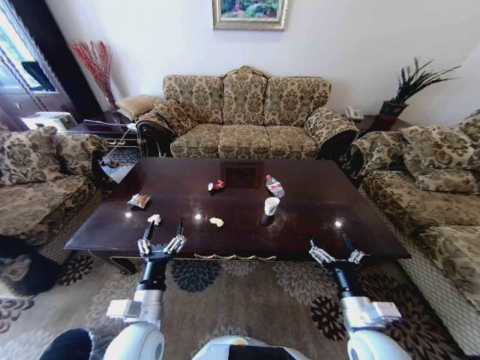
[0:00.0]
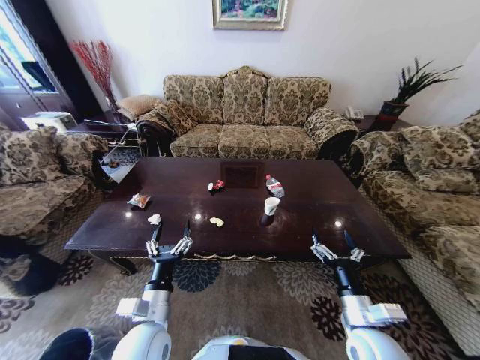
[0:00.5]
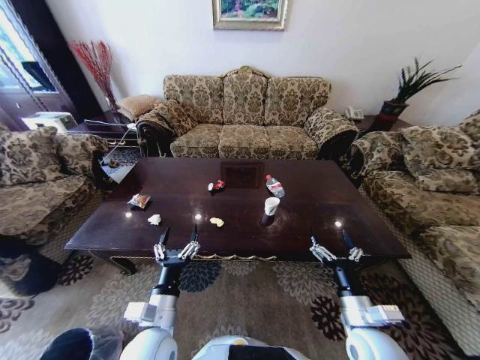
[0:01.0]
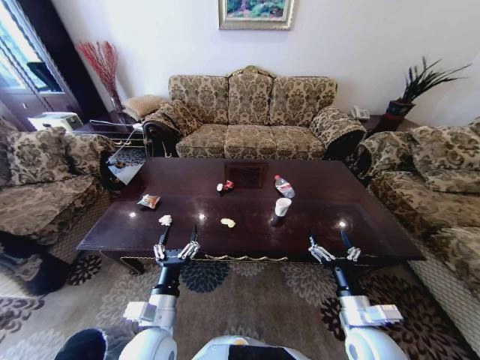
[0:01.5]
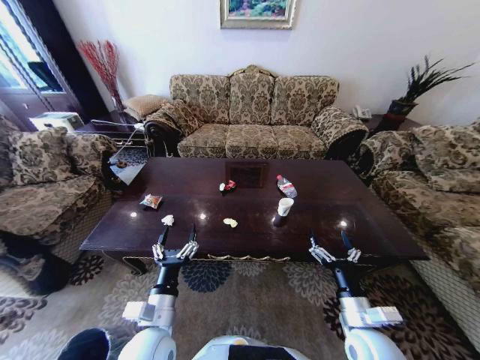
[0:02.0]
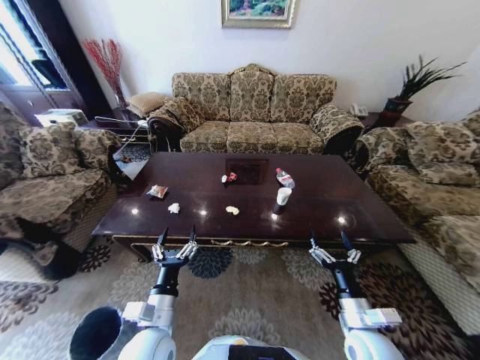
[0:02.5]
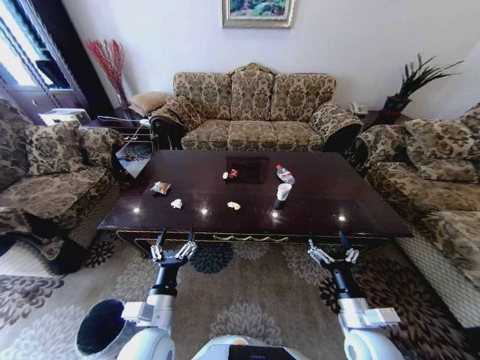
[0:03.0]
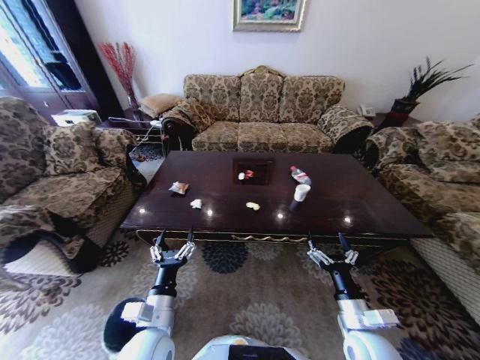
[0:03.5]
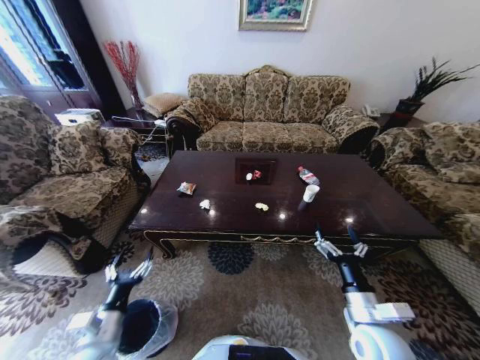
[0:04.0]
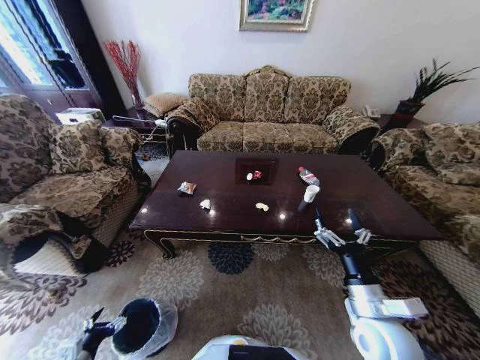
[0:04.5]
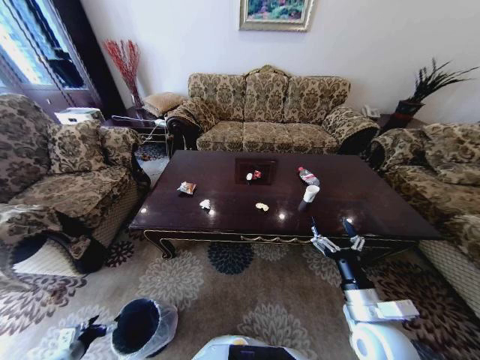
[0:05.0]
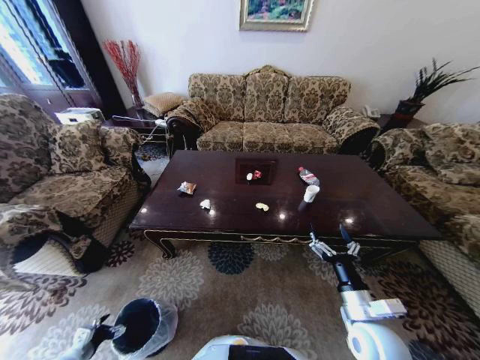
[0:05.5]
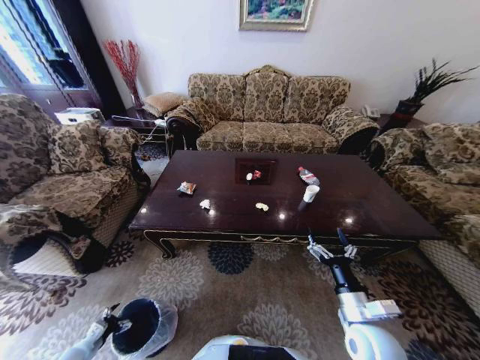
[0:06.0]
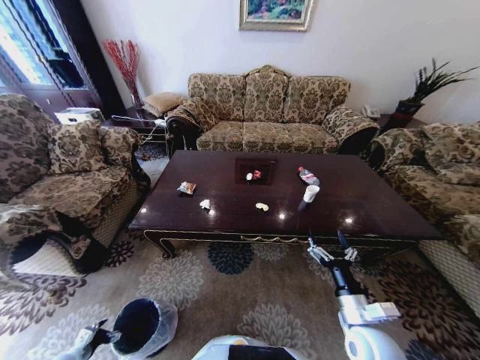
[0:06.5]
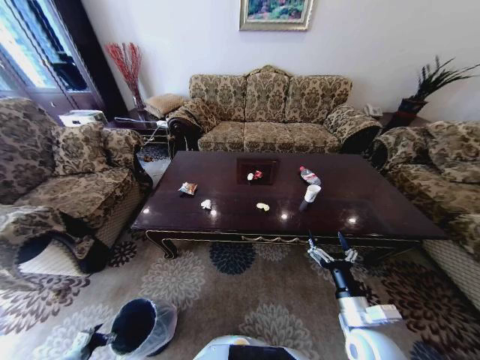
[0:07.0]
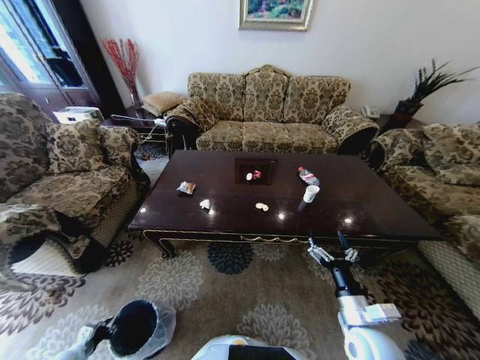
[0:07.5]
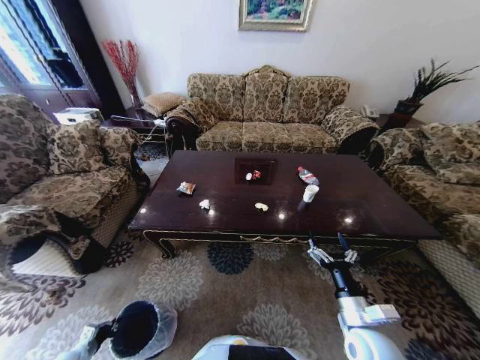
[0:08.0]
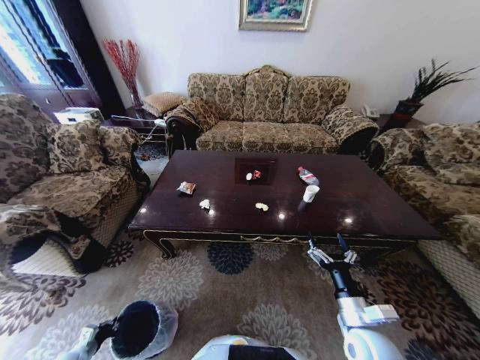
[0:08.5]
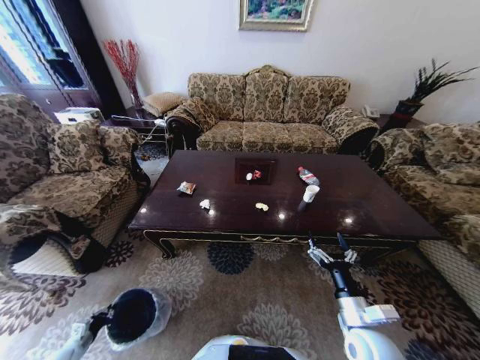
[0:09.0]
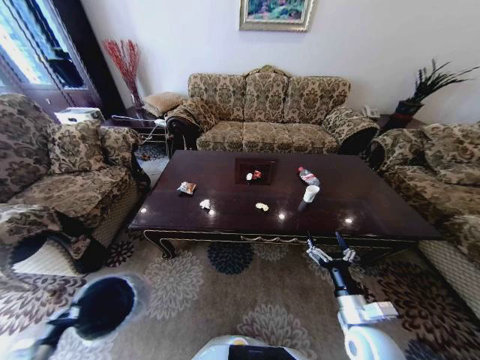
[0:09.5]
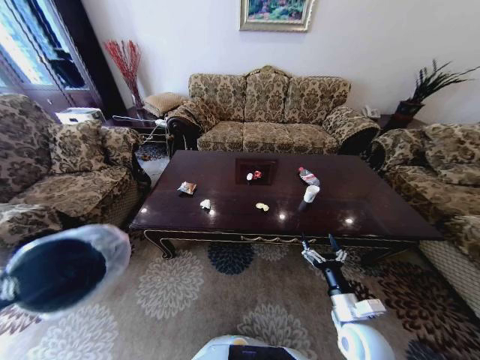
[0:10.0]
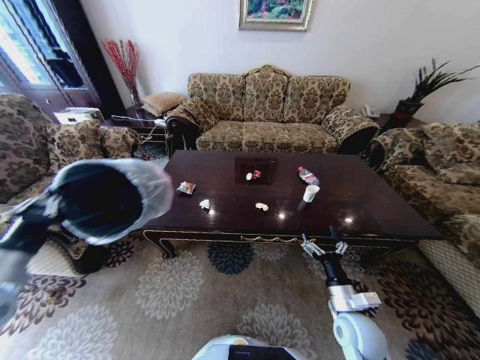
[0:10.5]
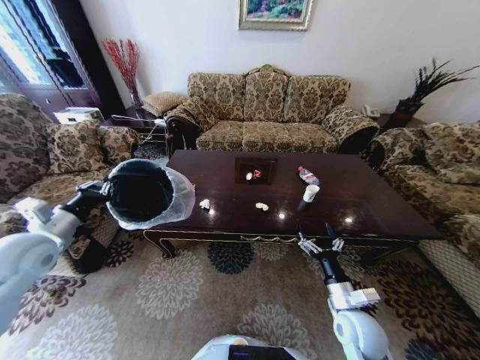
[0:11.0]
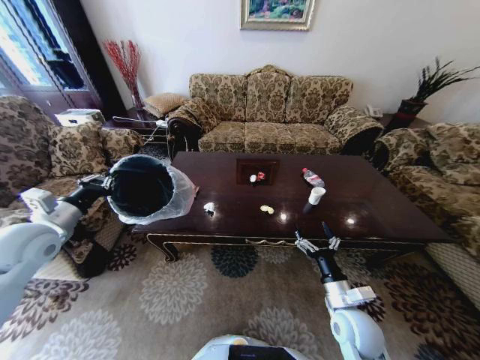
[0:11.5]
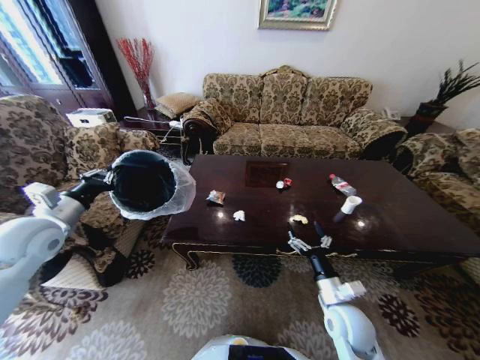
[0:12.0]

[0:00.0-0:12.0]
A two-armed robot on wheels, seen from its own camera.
Task of the whole recording: Move to the front of the table and place the trash on the table into the trash bin.
0:02.0 to 0:04.0: The left gripper is displaced to the left by some 10 cm.
0:04.0 to 0:06.0: The left gripper heads downward and to the left, covering about 30 cm.
0:06.0 to 0:08.0: The left gripper shifts some 10 cm downward and to the left, and closes its fingers.
0:08.0 to 0:10.0: The left gripper is displaced upward by roughly 35 cm.
0:10.0 to 0:12.0: The left gripper heads forward and upward, covering about 30 cm.

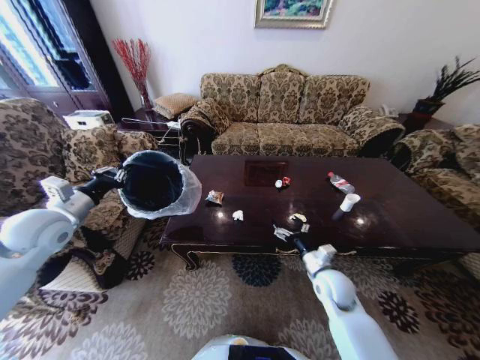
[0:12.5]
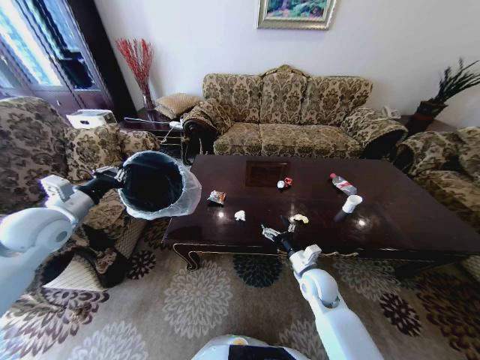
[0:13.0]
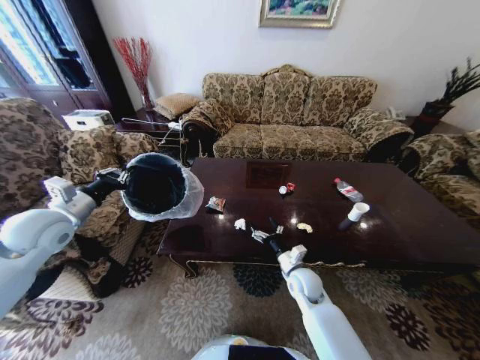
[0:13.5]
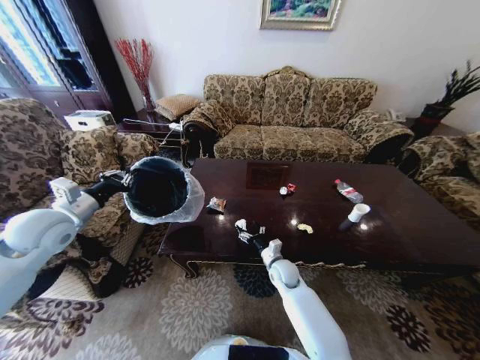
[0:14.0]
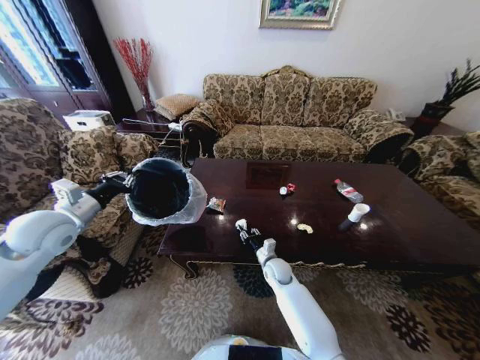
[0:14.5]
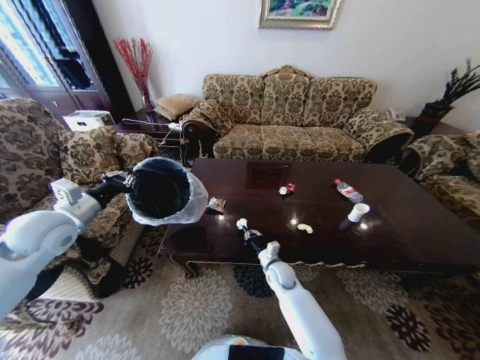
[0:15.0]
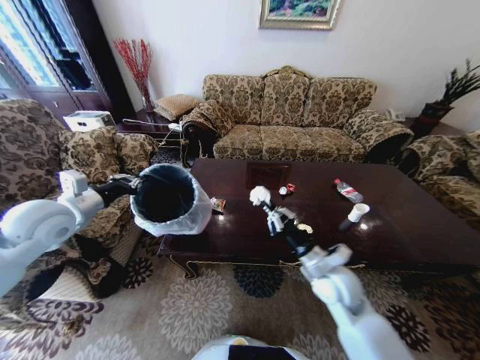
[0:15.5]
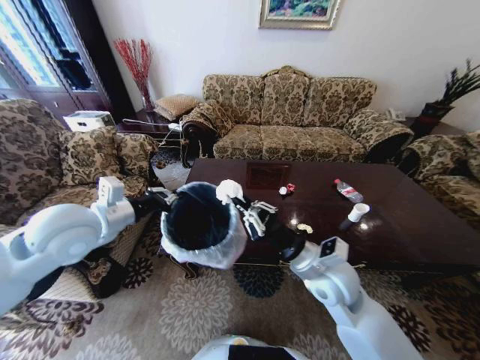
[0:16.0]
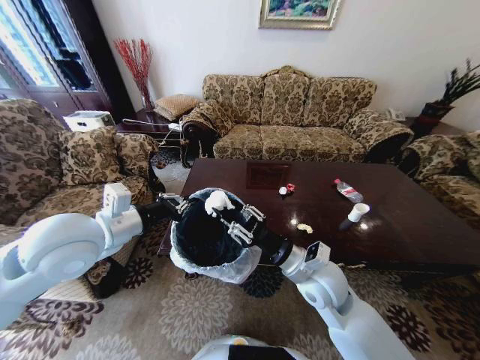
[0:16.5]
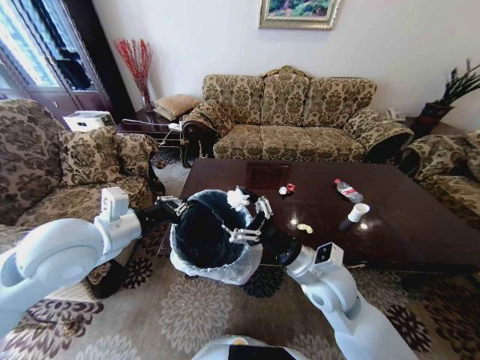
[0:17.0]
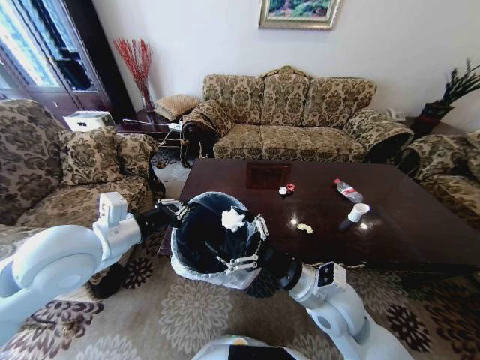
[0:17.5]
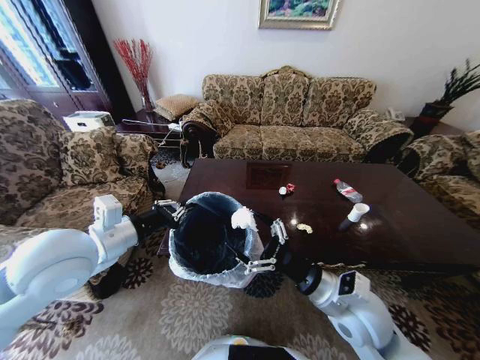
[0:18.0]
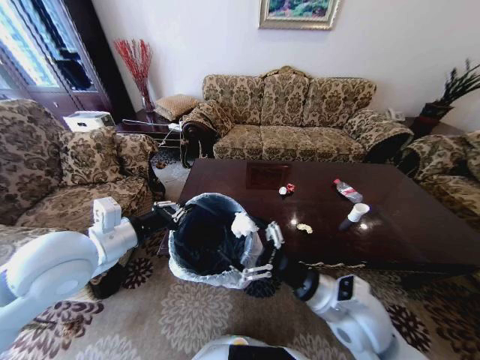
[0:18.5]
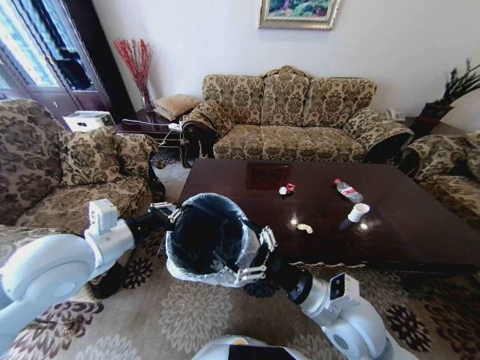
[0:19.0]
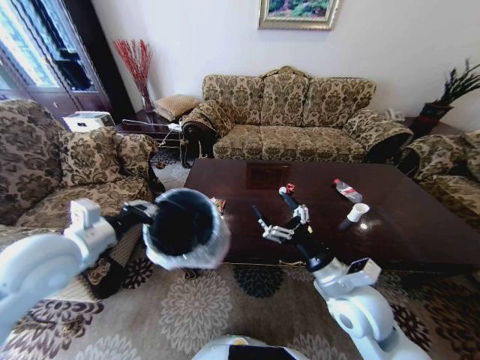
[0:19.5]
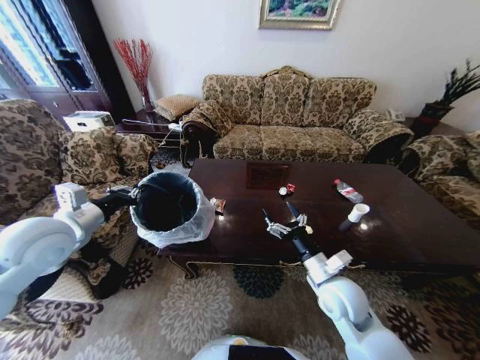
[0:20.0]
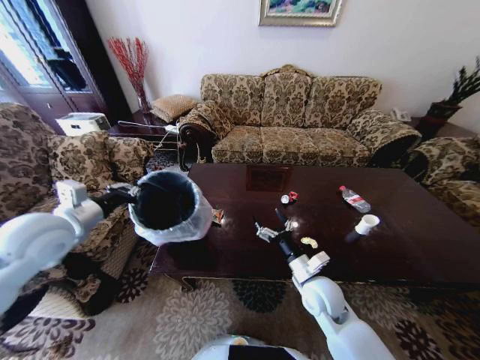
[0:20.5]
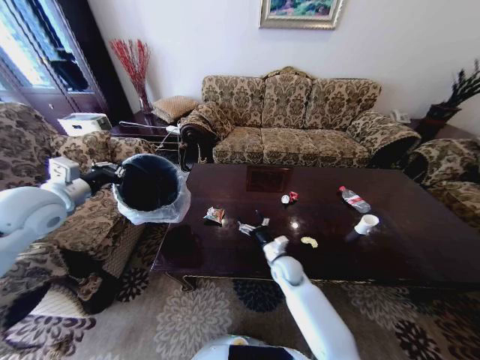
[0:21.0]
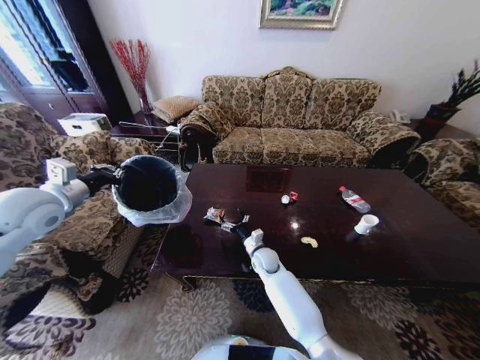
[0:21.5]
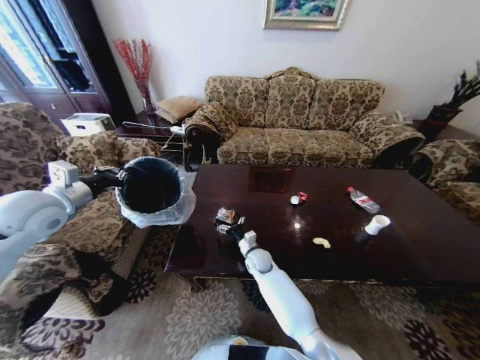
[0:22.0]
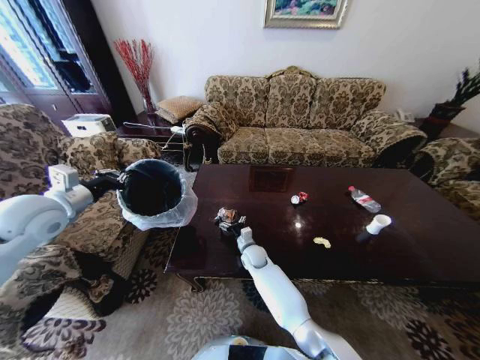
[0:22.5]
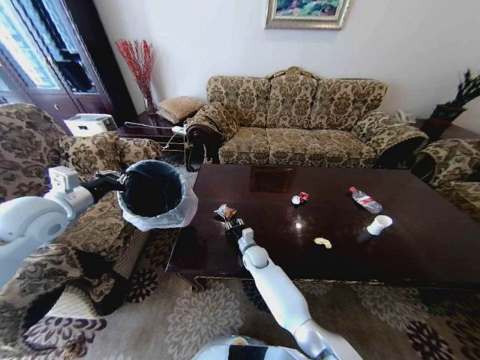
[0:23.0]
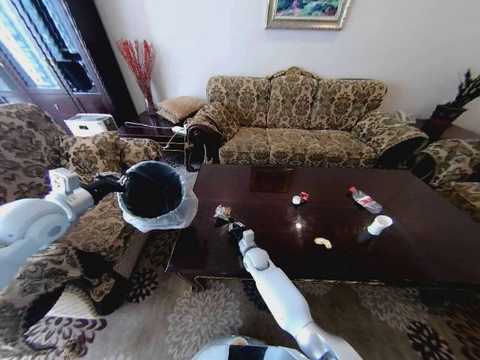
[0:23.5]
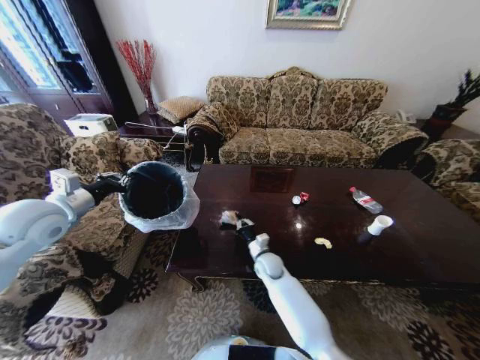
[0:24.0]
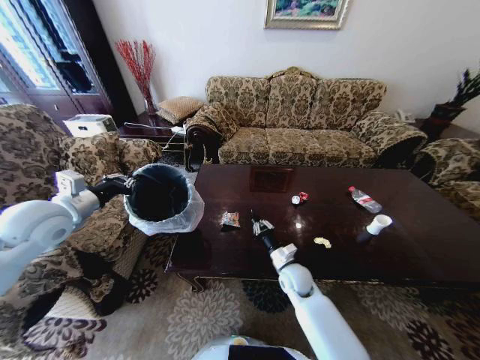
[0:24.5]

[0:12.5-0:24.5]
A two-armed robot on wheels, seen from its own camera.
Task of the whole recording: Move to the front of the table and place the trash on the table into the trash bin.
0:12.5 to 0:14.5: The right gripper heads to the left, downward and forward, covering about 20 cm, and closes its fingers.
0:14.5 to 0:16.5: The left gripper moves to the right and upward, about 15 cm. Meanwhile the right gripper heads upward and backward, covering approximately 25 cm.
0:16.5 to 0:18.5: The right gripper is displaced backward by approximately 5 cm, and opens up.
0:18.5 to 0:20.5: The left gripper heads to the left, covering approximately 10 cm. Meanwhile the right gripper shifts roughly 10 cm downward and forward.
0:20.5 to 0:22.5: The right gripper moves to the left, forward and downward, some 25 cm. The left gripper moves approximately 5 cm.
0:22.5 to 0:24.5: The right gripper shifts about 15 cm to the right and backward, and closes.

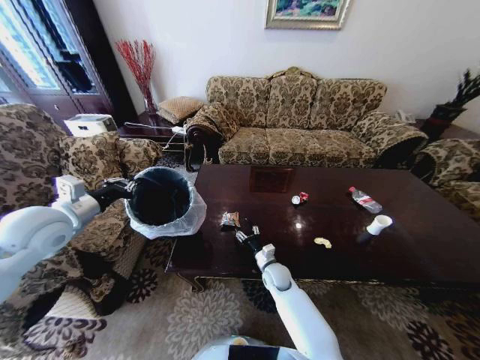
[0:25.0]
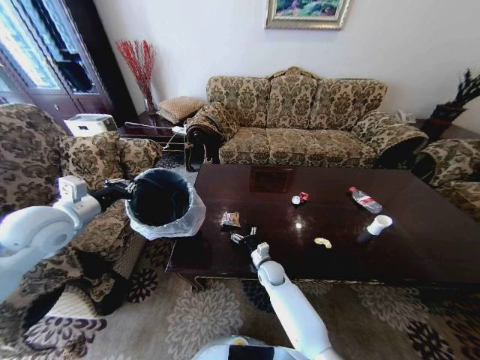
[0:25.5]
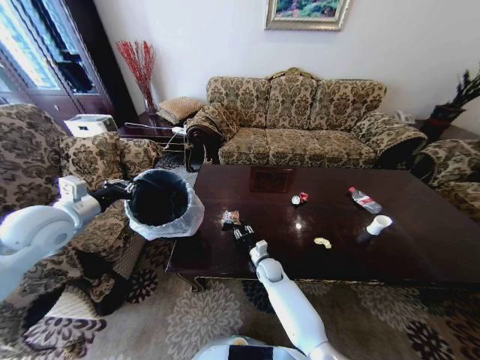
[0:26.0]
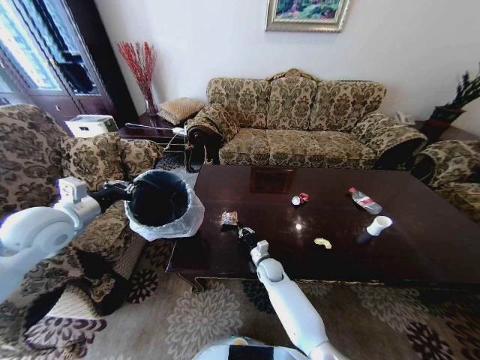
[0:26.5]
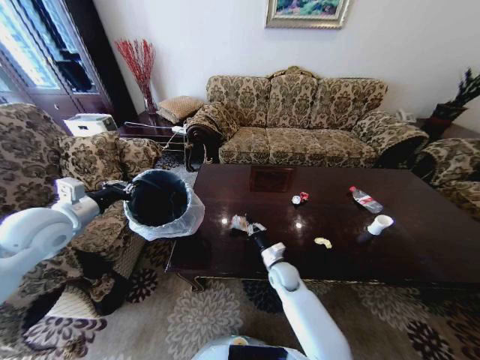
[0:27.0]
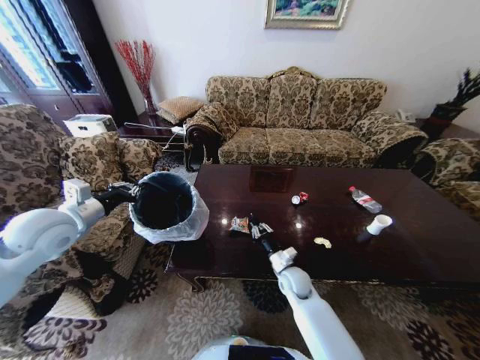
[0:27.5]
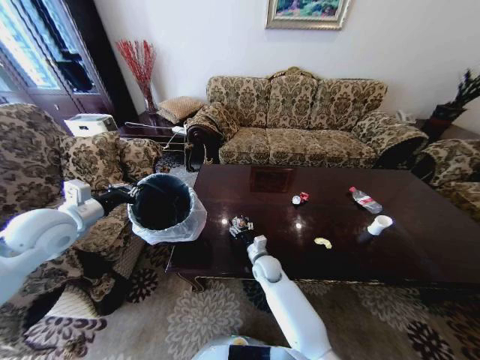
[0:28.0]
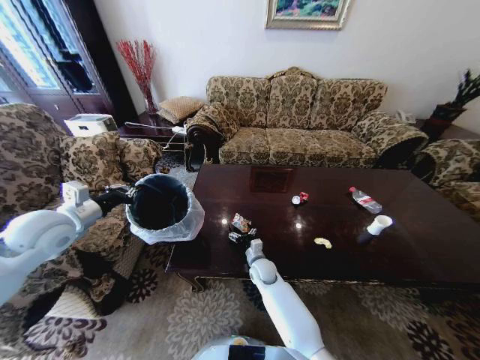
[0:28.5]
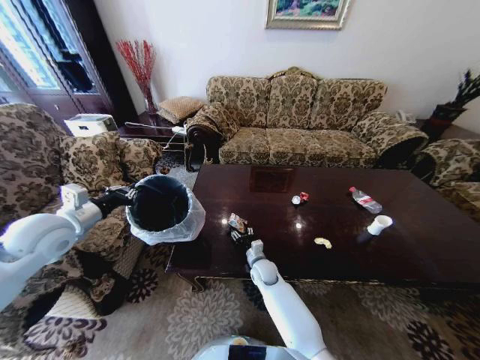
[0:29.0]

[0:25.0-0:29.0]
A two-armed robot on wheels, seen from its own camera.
Task of the whole recording: Move to the front of the table and place the trash on the table into the trash bin.
0:25.0 to 0:27.0: The right gripper closes up.
0:27.0 to 0:29.0: The right gripper heads to the left, covering some 5 cm, and opens up.
